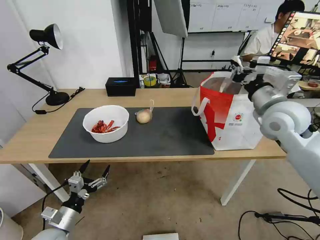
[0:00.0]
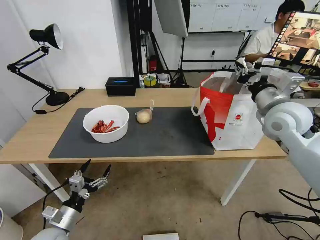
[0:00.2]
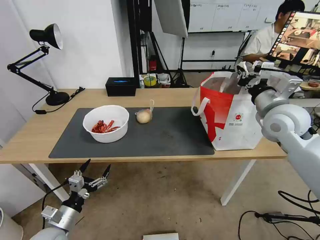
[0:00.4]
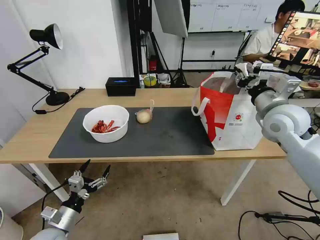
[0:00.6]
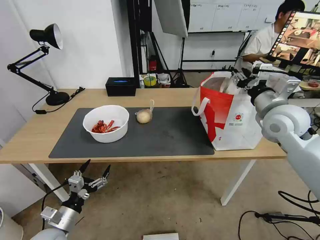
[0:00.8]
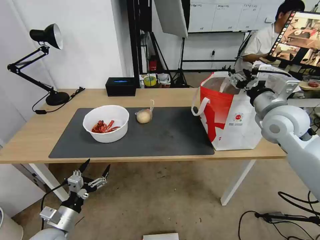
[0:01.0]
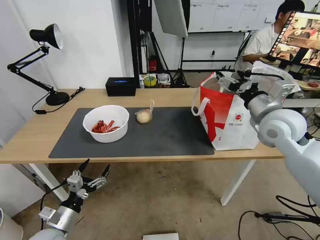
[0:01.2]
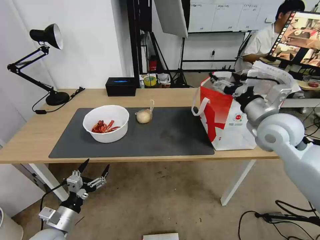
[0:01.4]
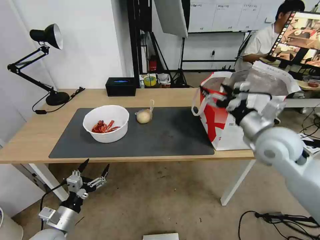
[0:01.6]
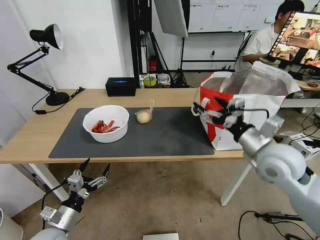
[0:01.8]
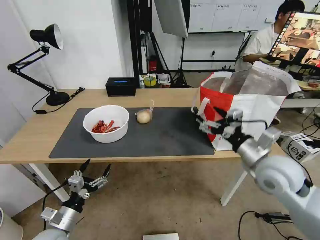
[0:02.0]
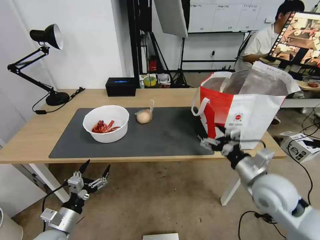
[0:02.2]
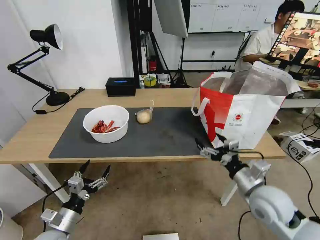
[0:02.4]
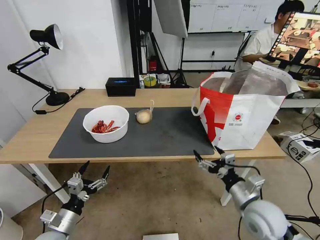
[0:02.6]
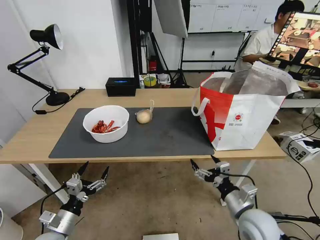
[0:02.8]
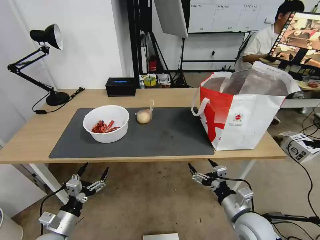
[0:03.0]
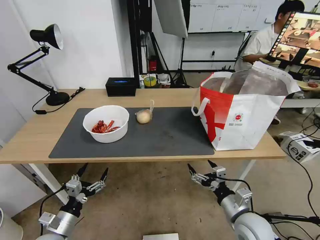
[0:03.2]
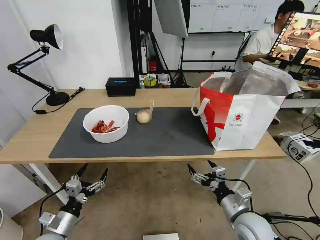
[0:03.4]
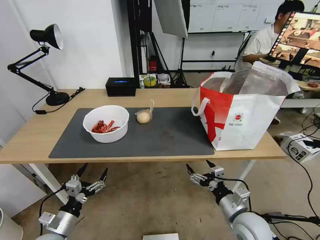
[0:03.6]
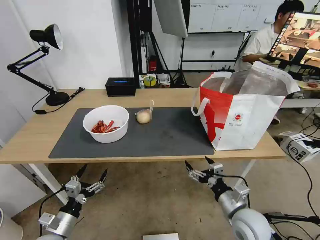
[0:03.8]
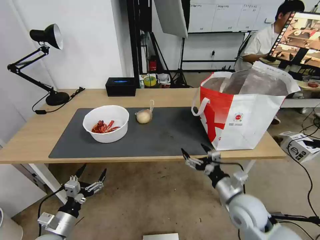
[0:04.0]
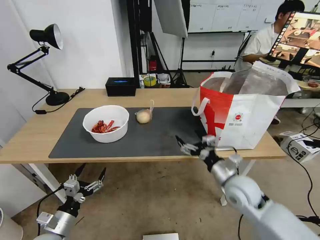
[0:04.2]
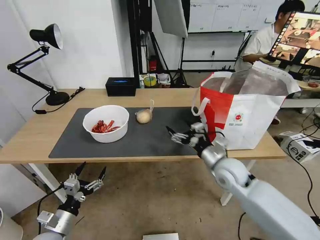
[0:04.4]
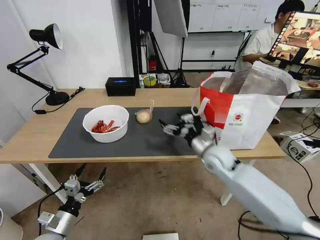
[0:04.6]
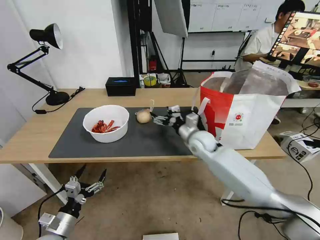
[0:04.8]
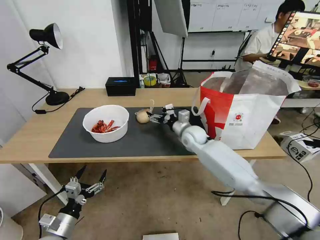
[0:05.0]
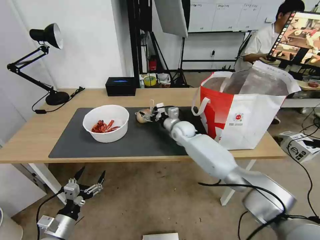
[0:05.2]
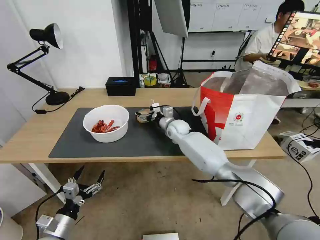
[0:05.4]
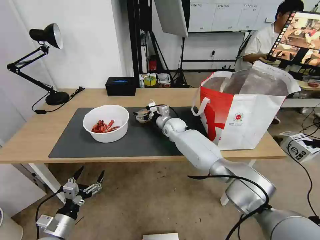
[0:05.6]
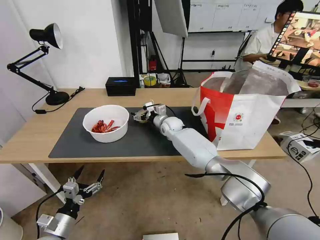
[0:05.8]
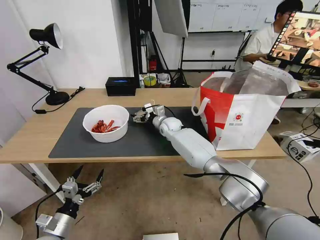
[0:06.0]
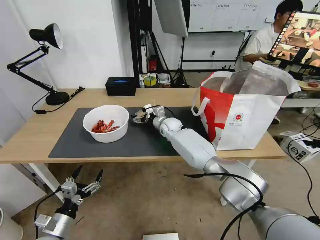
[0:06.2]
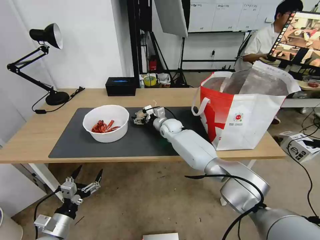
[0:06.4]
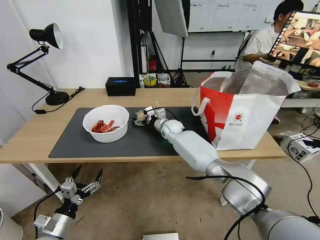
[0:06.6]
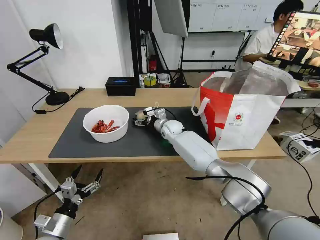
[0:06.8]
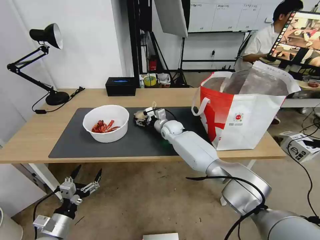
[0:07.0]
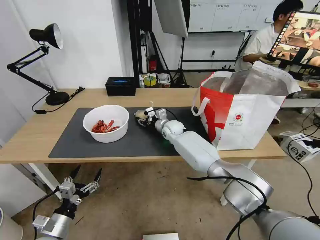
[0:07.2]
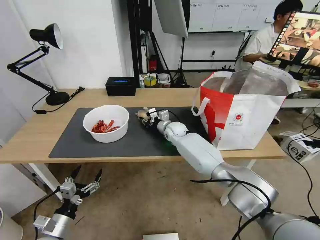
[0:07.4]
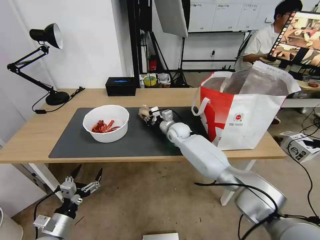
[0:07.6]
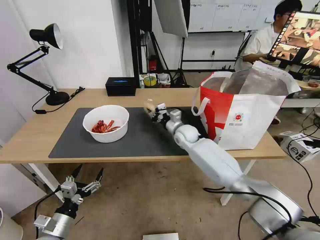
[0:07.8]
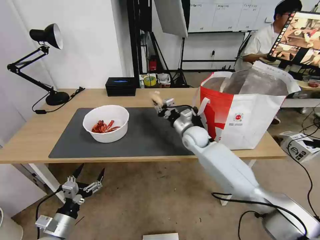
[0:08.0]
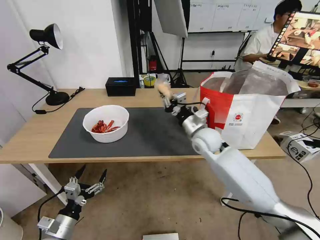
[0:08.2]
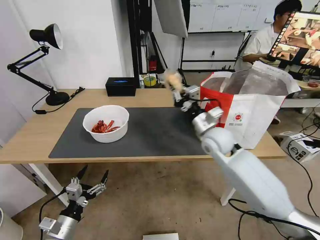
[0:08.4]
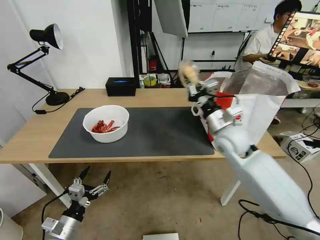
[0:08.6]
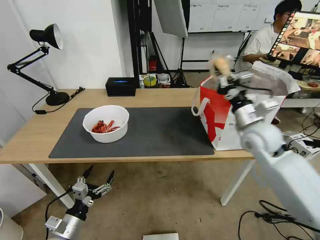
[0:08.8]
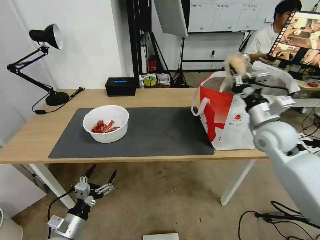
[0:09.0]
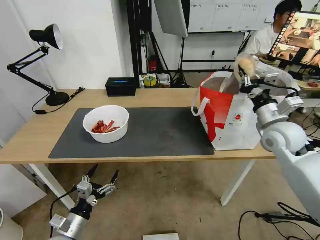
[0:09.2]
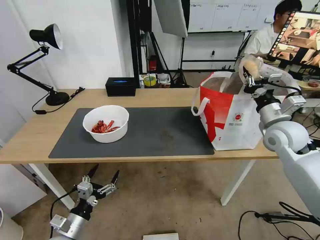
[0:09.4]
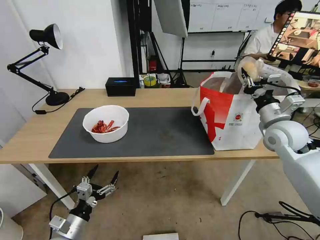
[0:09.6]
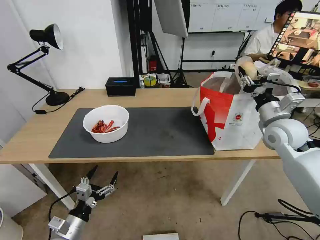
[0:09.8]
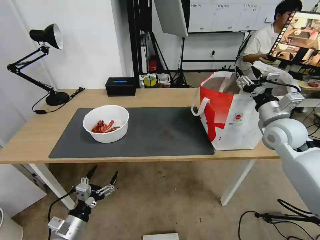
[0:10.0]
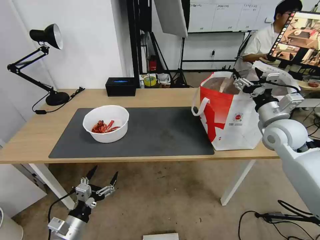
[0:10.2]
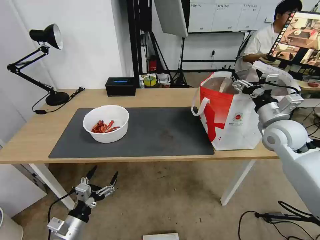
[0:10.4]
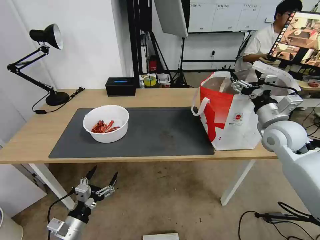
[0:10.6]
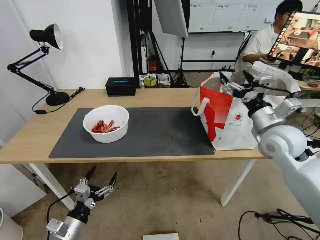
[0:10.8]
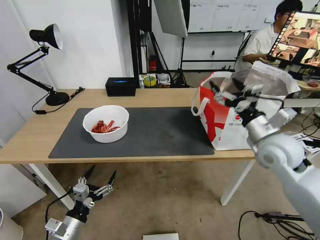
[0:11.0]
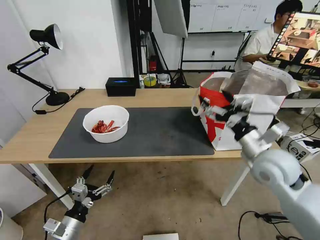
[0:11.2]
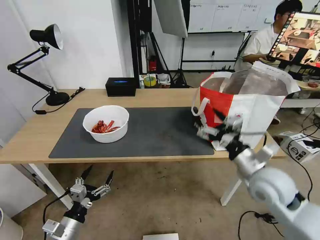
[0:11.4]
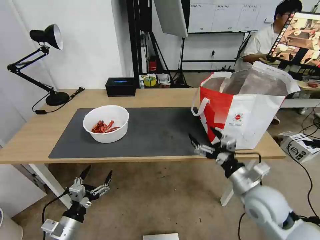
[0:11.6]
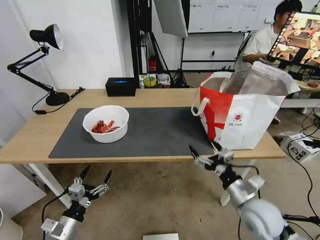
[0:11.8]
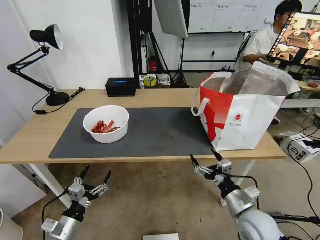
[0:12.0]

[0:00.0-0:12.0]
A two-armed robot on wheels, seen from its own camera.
Task of the whole recording: Pick up the trash from the table and place it into the takeout bag.
0:00.0 to 0:01.6: The right gripper changes place by some 5 cm, and opens up.
0:01.6 to 0:03.0: The right gripper heads downward and backward, covering approximately 25 cm.
0:03.0 to 0:04.4: The right gripper heads forward and upward, covering roughly 15 cm.
0:04.4 to 0:06.0: The right gripper travels forward and to the left by some 30 cm.
0:06.0 to 0:07.6: The right gripper ends up about 5 cm from where it was, and closes its fingers.
0:07.6 to 0:09.0: The right gripper heads to the right, backward and upward, covering roughly 30 cm.
0:09.0 to 0:10.4: The right gripper opens its fingers.
0:10.4 to 0:12.0: The right gripper is displaced backward, downward and to the left by some 30 cm.

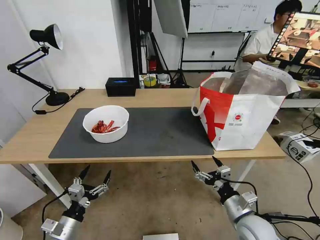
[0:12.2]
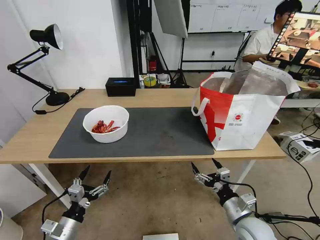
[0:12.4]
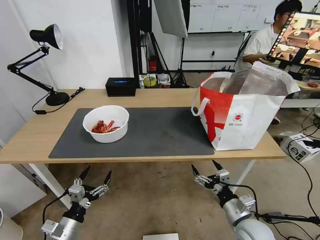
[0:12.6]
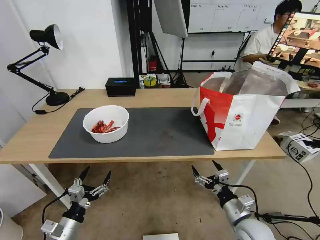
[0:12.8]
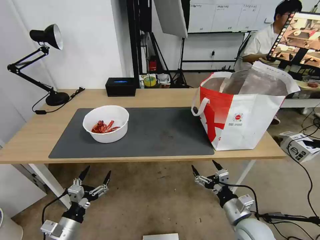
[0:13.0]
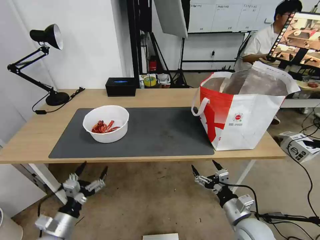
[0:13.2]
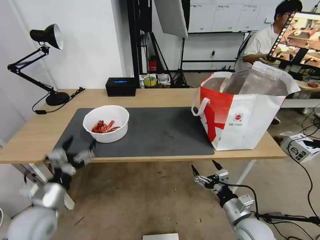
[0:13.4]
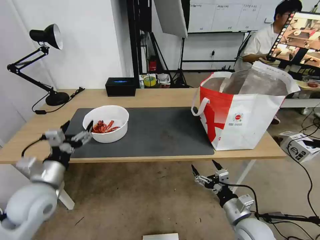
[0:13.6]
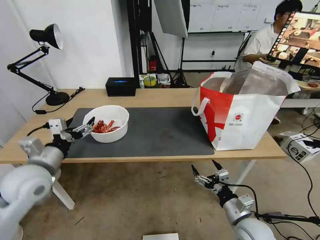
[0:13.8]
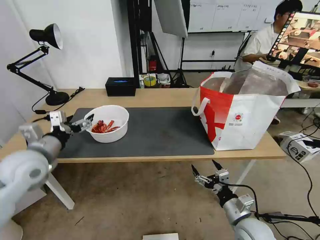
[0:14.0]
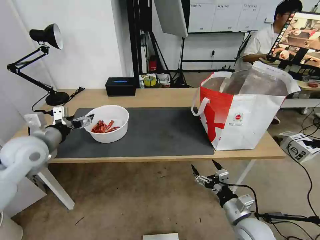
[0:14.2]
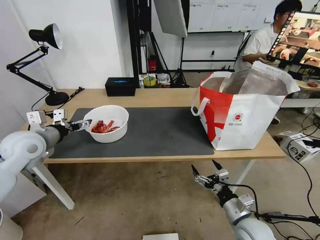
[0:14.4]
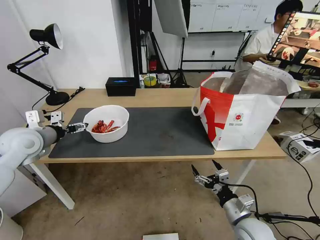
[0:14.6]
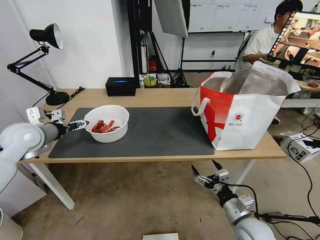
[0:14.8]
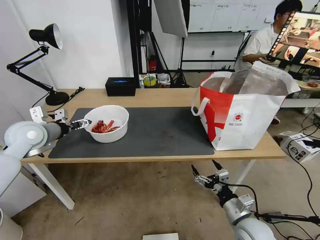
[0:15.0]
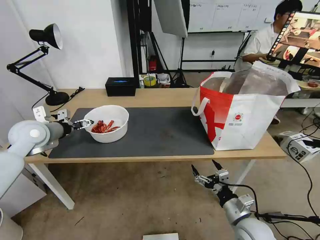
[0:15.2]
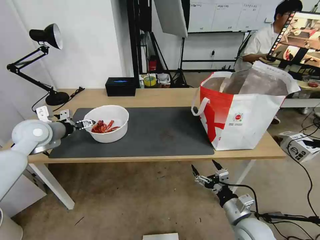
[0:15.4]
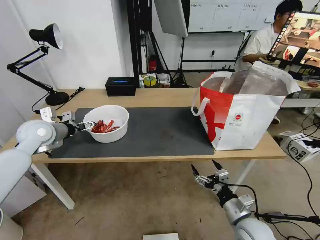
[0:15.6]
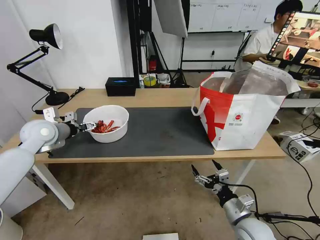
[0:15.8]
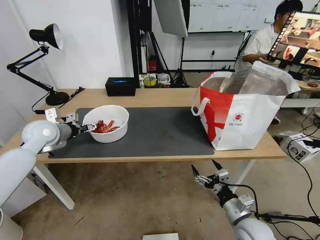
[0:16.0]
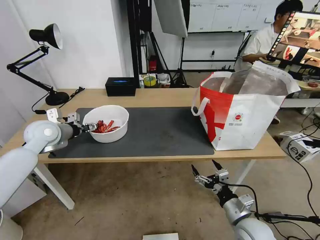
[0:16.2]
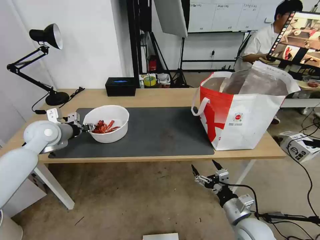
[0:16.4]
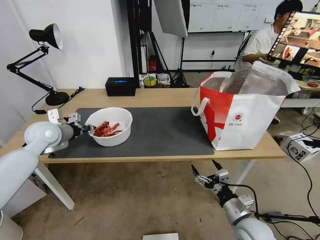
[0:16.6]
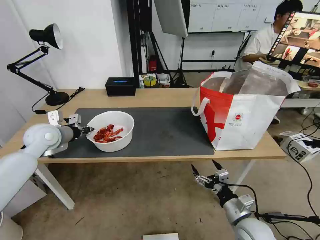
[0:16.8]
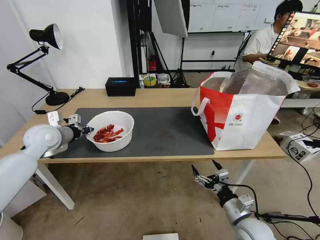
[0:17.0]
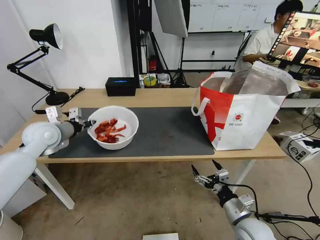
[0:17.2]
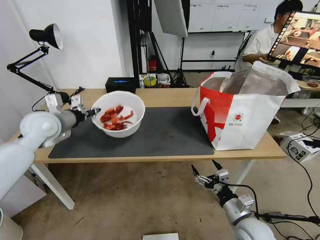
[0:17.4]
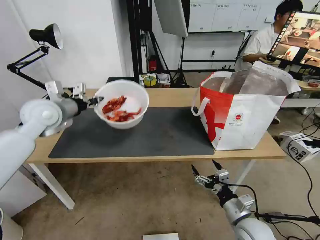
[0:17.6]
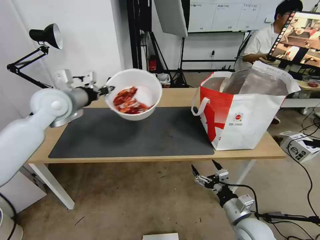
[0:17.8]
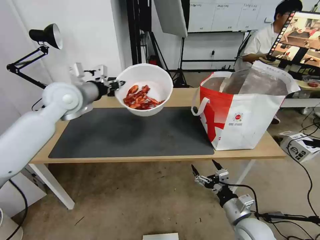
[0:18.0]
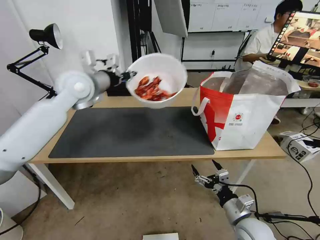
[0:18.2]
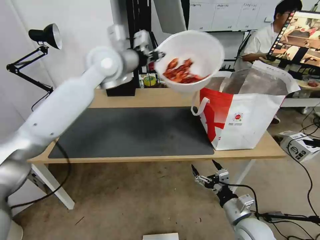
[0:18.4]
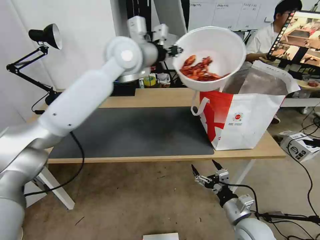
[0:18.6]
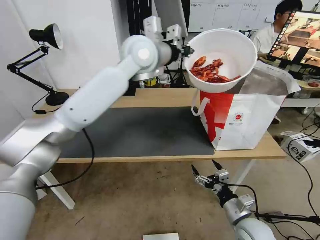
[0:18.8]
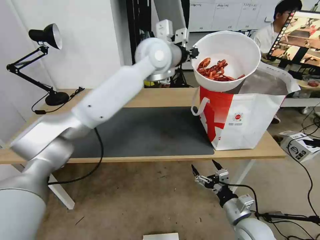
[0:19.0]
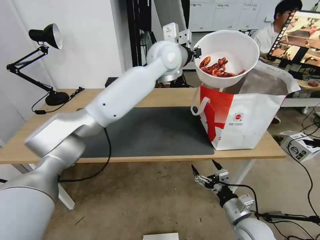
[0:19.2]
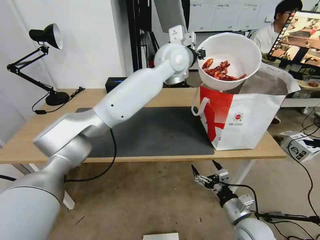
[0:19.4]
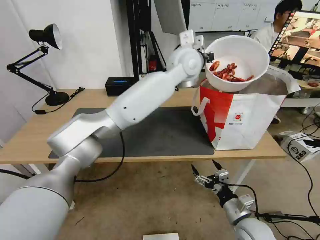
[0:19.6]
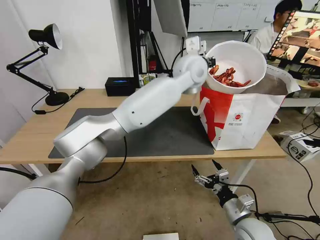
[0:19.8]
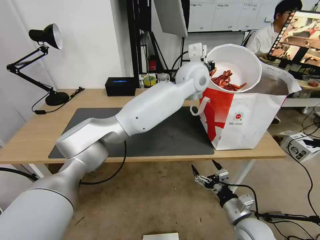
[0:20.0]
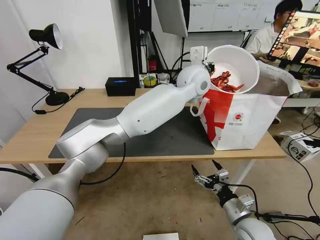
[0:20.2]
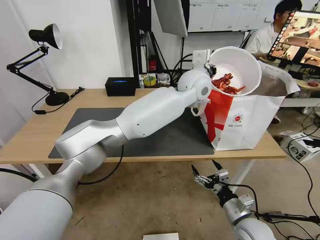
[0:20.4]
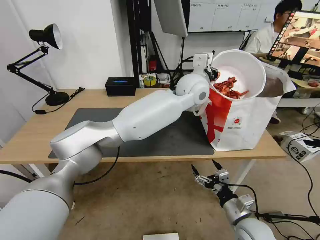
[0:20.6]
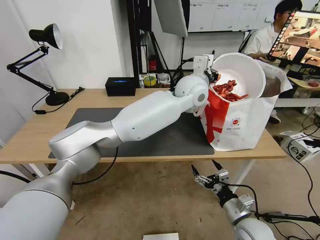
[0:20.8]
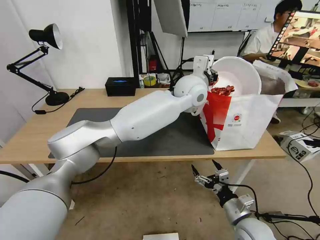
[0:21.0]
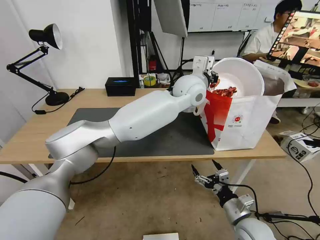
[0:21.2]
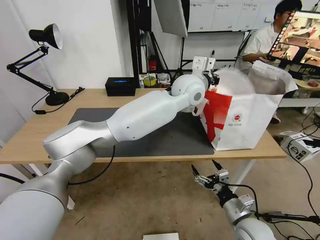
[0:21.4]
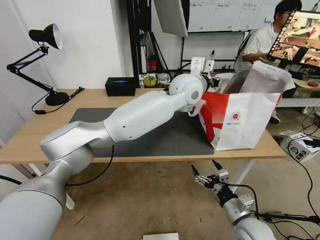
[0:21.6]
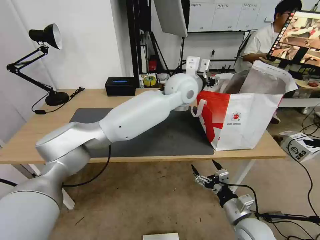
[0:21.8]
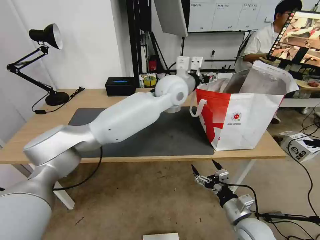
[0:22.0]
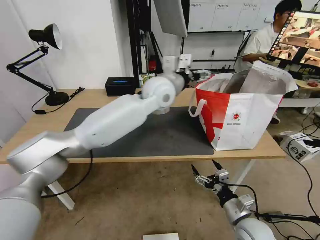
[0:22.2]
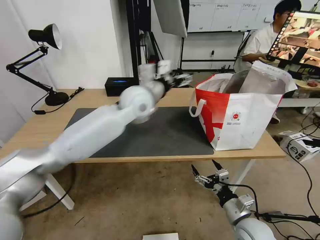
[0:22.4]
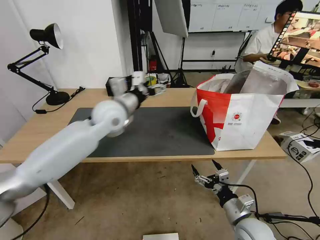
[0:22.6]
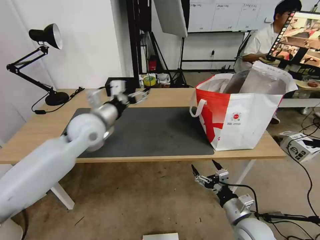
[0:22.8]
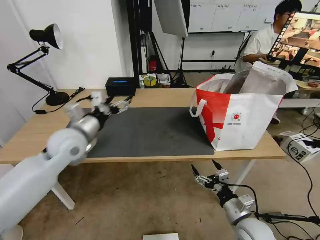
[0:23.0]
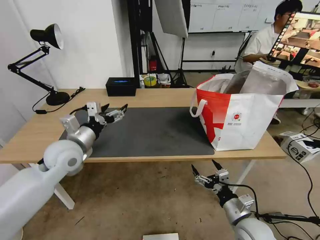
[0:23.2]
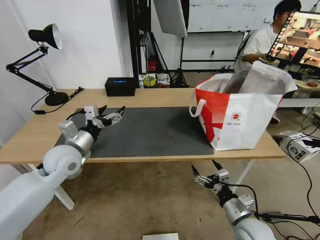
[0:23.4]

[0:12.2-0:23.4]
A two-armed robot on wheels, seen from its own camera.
Task of the whole recording: Pick up the trash from the table and place it into the takeout bag.
0:12.2 to 0:13.8: The left gripper heads upward and forward, covering some 25 cm.
0:13.8 to 0:15.4: The left gripper travels forward by approximately 15 cm.
0:15.4 to 0:17.0: The left gripper closes up.
0:17.0 to 0:18.6: The left gripper goes some 35 cm to the right and upward.
0:18.6 to 0:20.2: The left gripper goes roughly 20 cm to the right.
0:20.2 to 0:21.8: The left gripper opens.
0:21.8 to 0:23.4: The left gripper goes approximately 40 cm to the left, downward and backward, and opens.
